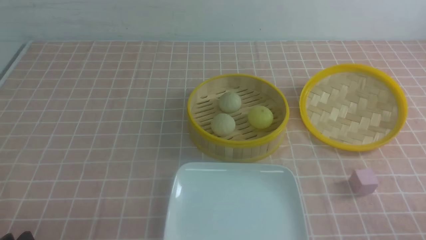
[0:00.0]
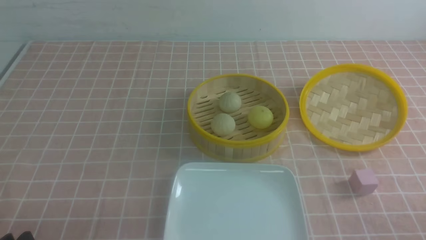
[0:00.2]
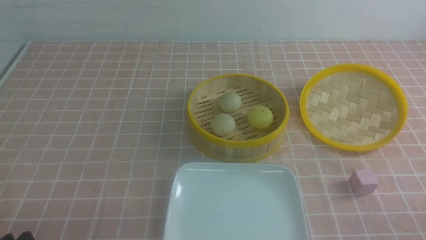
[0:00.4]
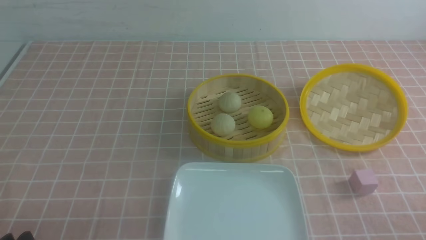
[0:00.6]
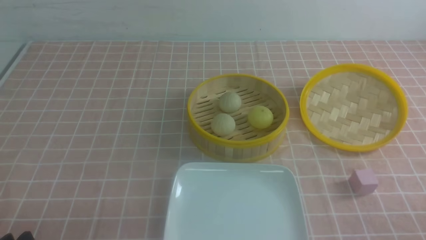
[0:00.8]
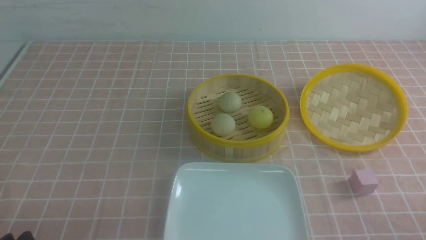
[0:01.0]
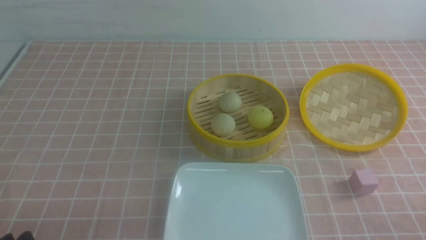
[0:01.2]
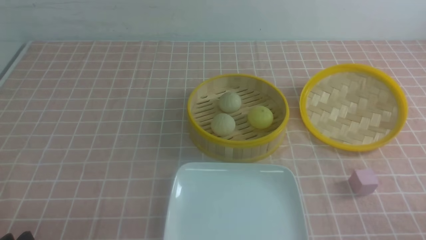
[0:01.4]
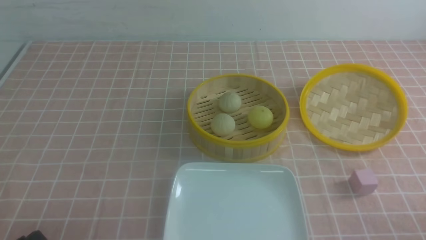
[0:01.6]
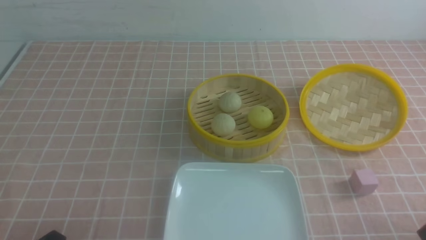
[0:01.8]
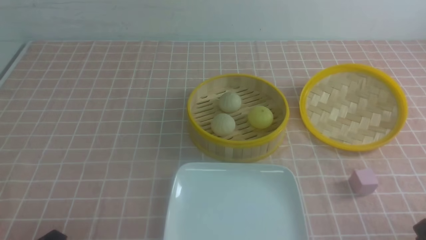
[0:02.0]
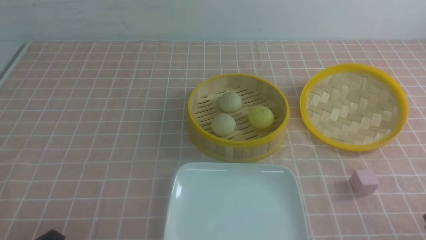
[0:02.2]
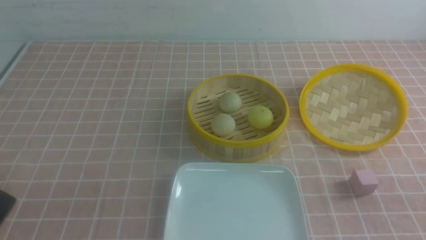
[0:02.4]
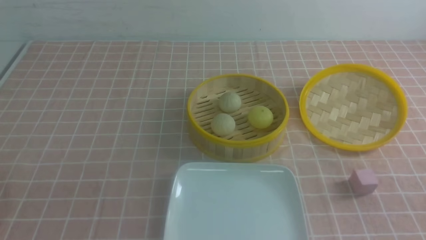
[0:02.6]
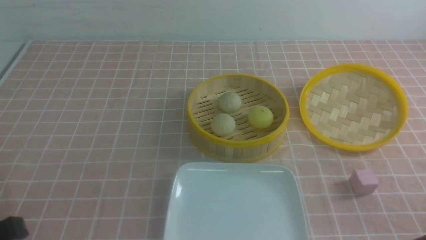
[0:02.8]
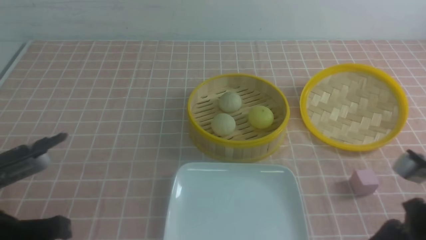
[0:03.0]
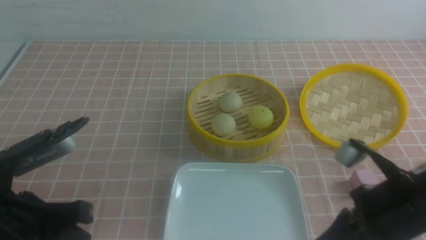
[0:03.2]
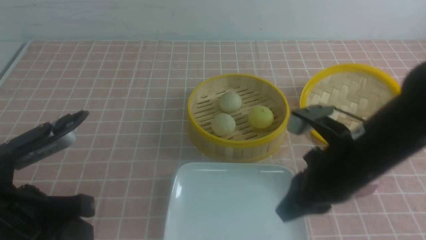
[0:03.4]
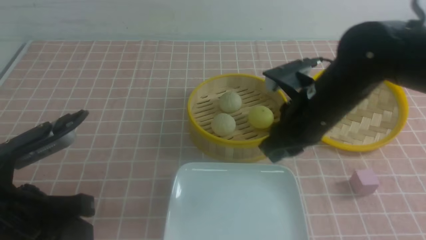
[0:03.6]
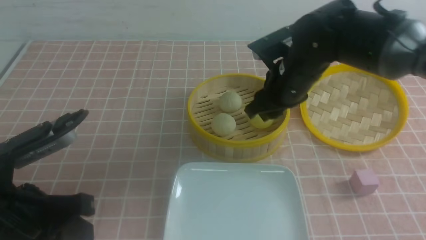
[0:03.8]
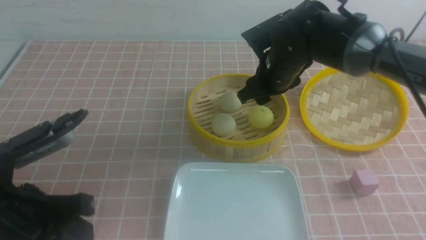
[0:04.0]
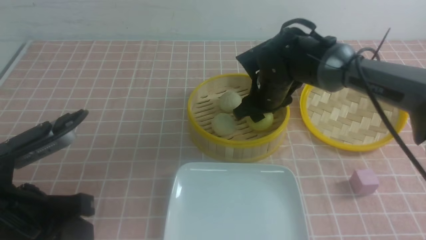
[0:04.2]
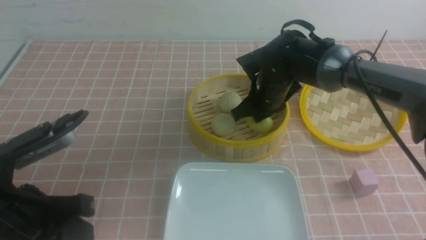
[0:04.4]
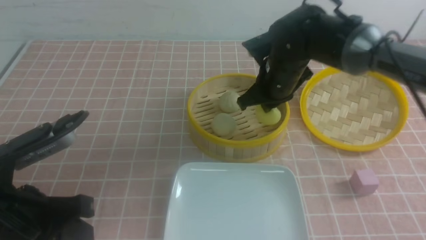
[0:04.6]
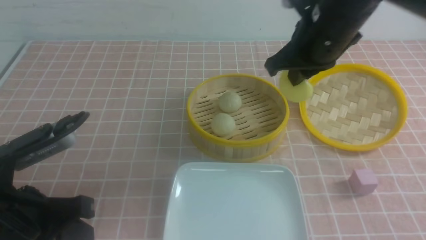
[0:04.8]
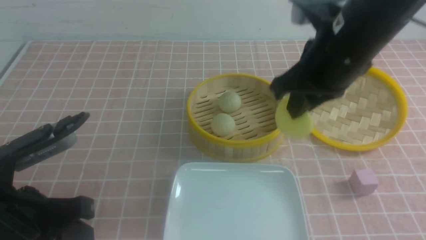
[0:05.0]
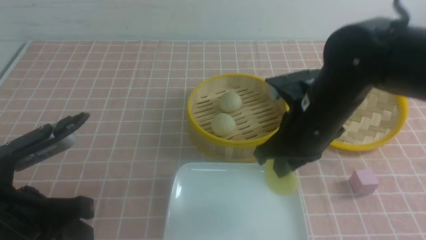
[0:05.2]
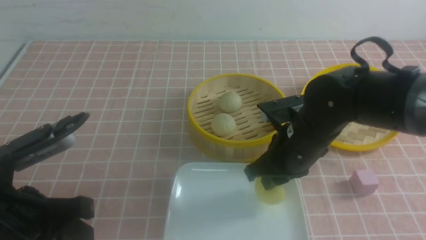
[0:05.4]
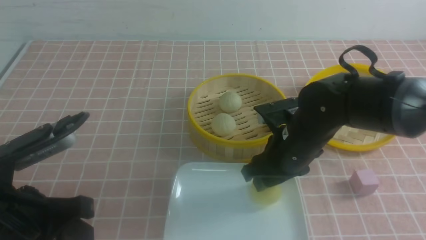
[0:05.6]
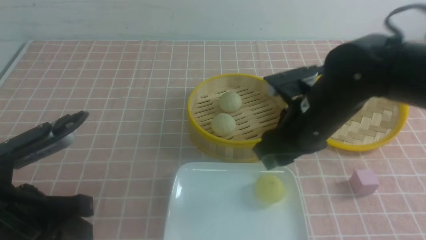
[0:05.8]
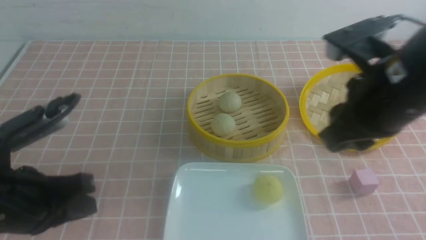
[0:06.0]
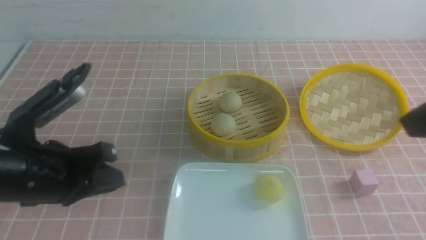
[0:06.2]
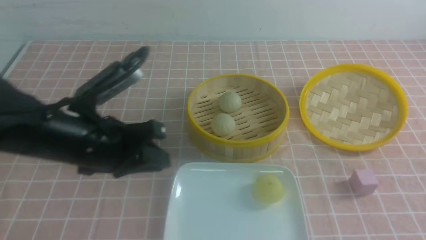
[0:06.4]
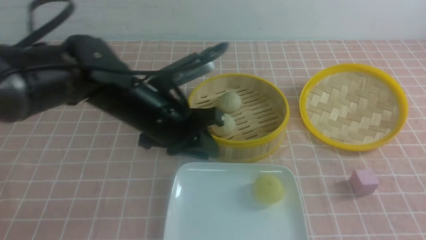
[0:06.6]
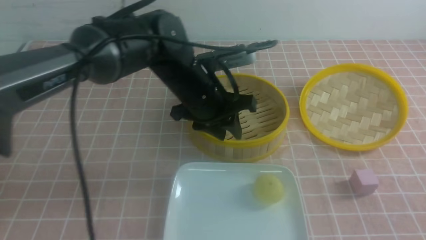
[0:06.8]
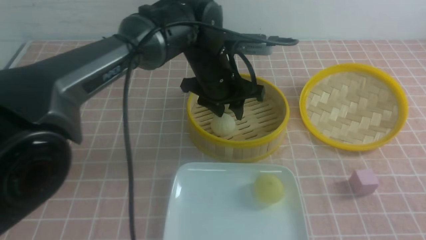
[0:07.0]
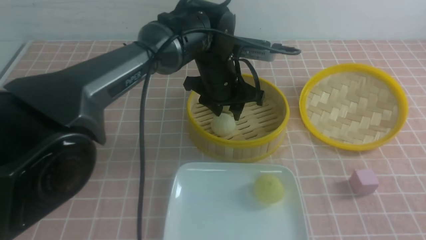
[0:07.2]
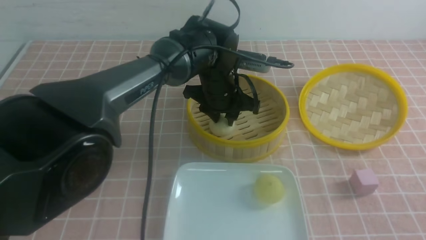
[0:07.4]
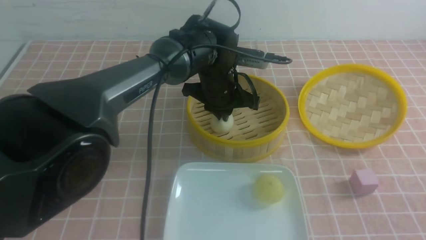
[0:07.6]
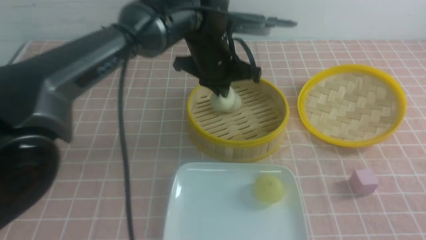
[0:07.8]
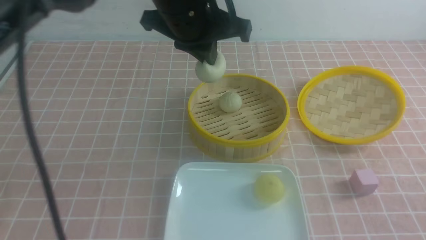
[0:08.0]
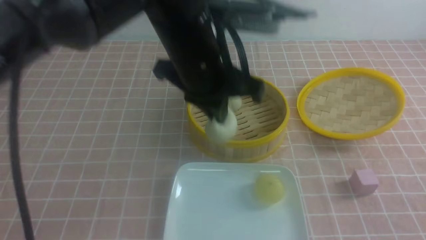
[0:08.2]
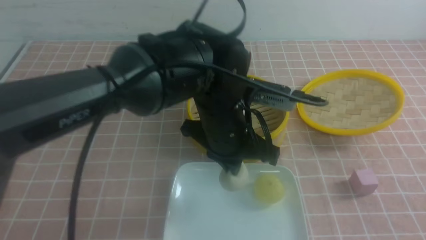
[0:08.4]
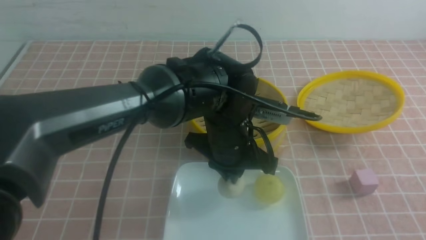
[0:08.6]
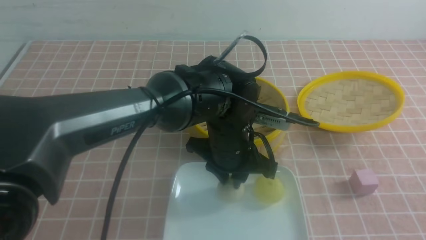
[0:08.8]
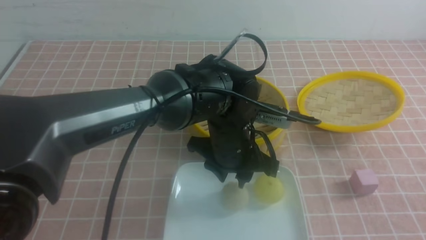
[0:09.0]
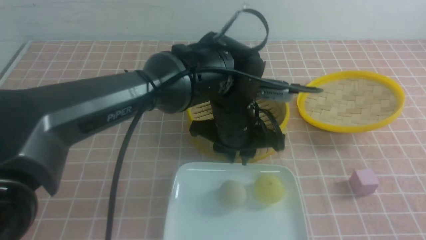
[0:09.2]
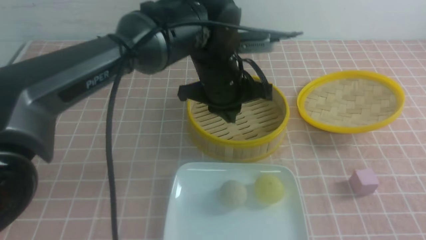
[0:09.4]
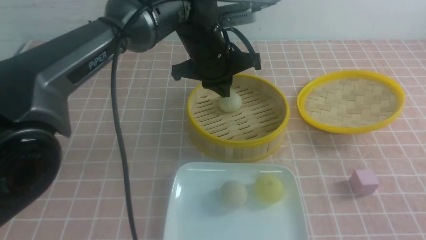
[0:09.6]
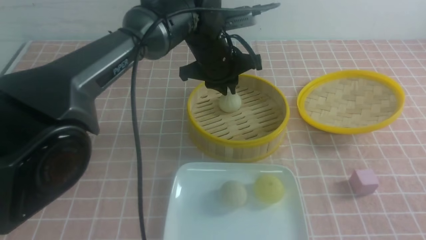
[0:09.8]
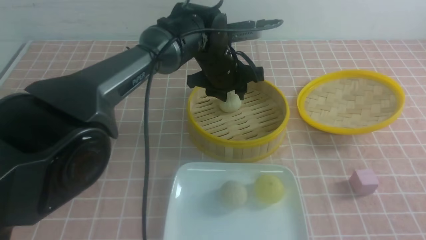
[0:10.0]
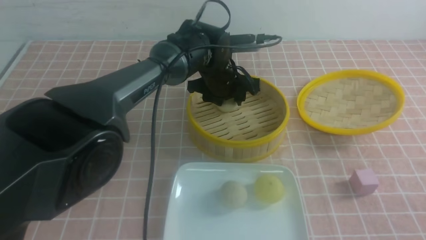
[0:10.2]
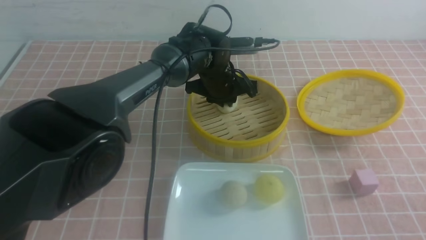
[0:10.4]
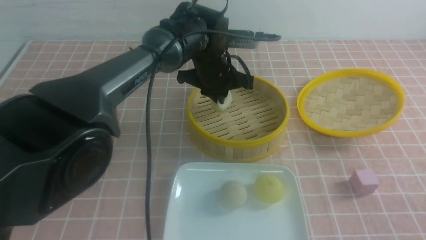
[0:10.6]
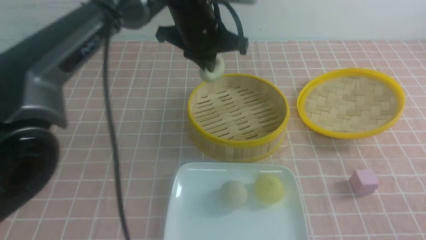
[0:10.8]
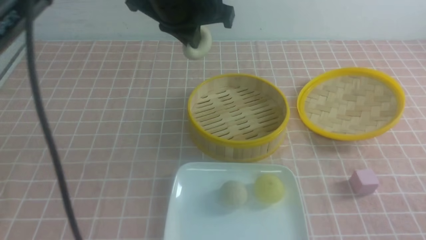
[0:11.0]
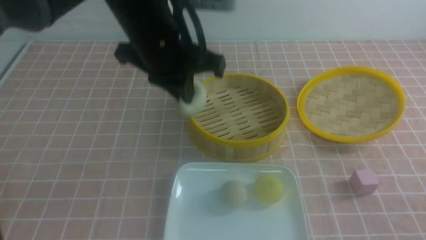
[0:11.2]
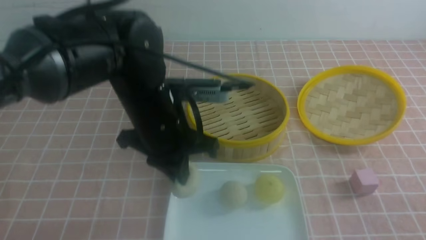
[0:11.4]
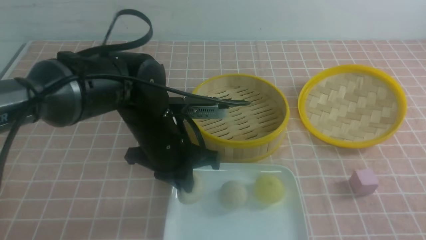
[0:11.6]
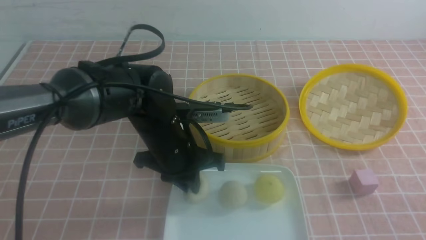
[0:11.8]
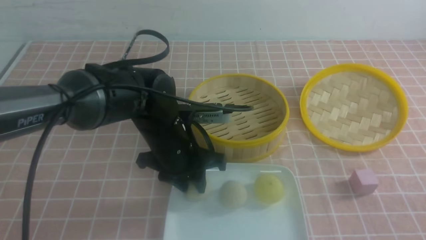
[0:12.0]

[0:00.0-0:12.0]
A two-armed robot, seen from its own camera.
Step, 0.0 to 4.4 s: use the right arm to grab the steamed stuffed bun that is closest to it.
Step, 4.6 to 5.6 s: use the right arm to put the steamed stuffed bun into the plate.
Step, 5.8 to 7.4 s: use the left arm to grab the steamed stuffed bun that is closest to it.
Step, 7.8 to 9.0 s: use the left arm to put the steamed stuffed bun into the plate.
Step, 9.2 to 10.2 s: use the left arm to grab the steamed stuffed bun that is closest to it.
1.6 to 3.0 s: The left gripper heads upward and forward, covering roughly 10 cm, and closes up; the right gripper moves forward, upward and to the left, about 15 cm, and closes.
3.0 to 4.4 s: The right gripper heads forward and to the left, covering roughly 30 cm, and opens its fingers.
4.4 to 6.0 s: The right gripper is displaced backward and upward by roughly 25 cm, and closes and opens again.
6.0 to 7.6 s: The right gripper heads backward, to the right and downward, covering about 20 cm, and closes its fingers; the left gripper is displaced forward and to the right by roughly 35 cm, and opens and closes again.
7.6 to 9.0 s: The left gripper heads backward, covering roughly 10 cm, and reaches some 10 cm upward, then returns.
9.0 to 10.4 s: The left gripper travels forward by about 15 cm.
10.4 to 12.0 s: The left gripper shifts about 15 cm backward and to the left, and goes upward and returns, roughly 15 cm each way.

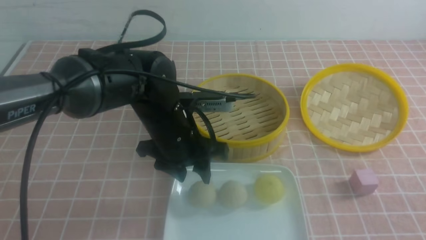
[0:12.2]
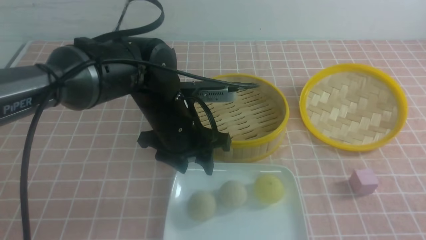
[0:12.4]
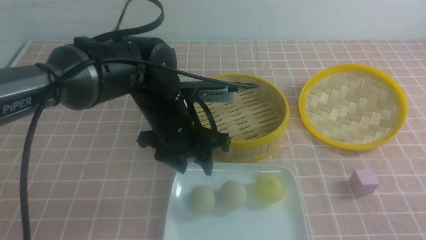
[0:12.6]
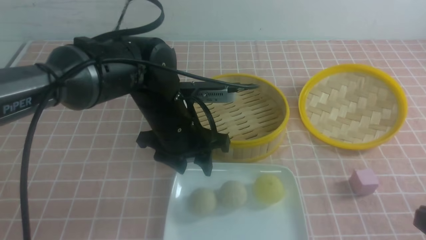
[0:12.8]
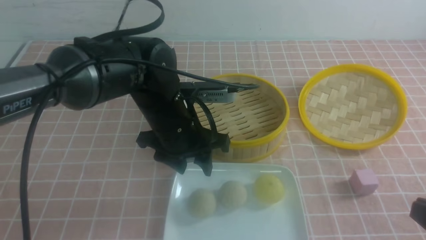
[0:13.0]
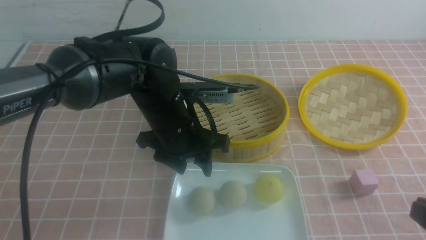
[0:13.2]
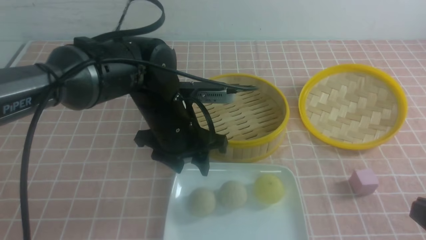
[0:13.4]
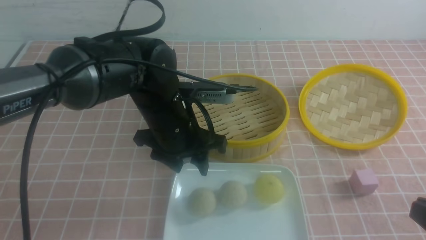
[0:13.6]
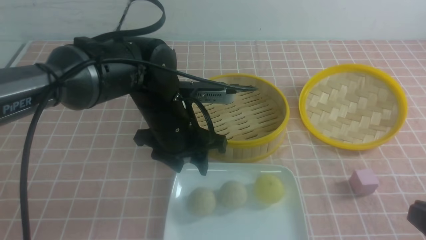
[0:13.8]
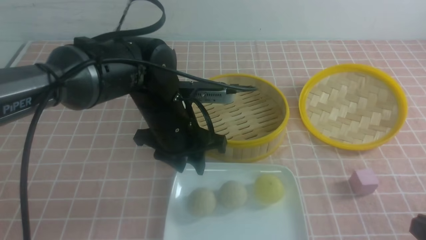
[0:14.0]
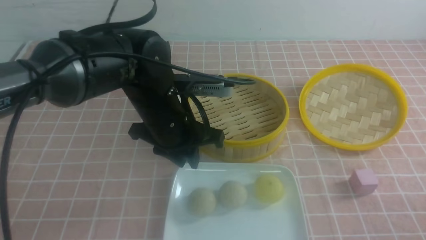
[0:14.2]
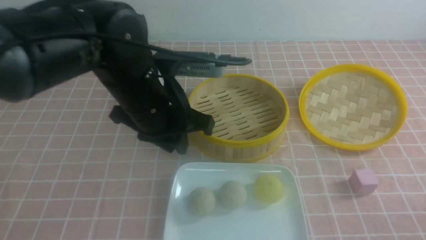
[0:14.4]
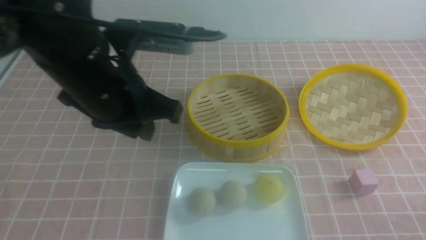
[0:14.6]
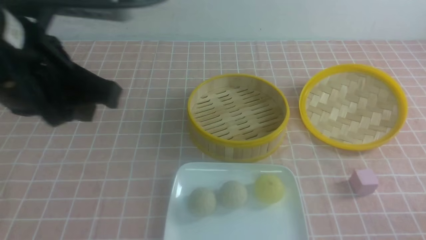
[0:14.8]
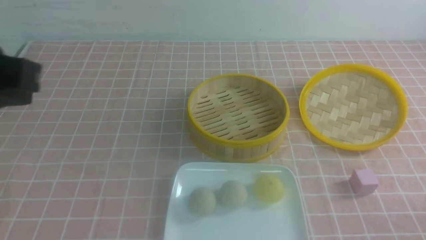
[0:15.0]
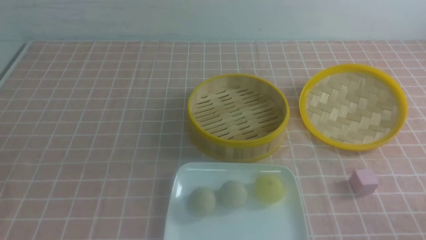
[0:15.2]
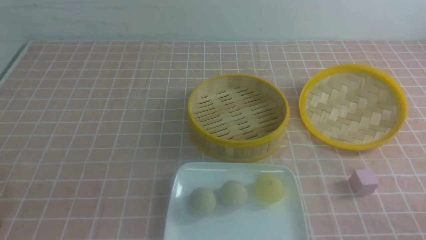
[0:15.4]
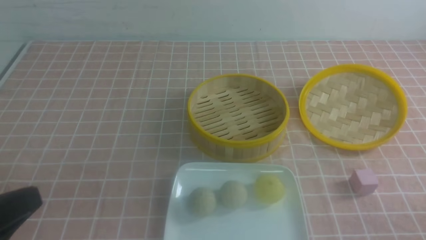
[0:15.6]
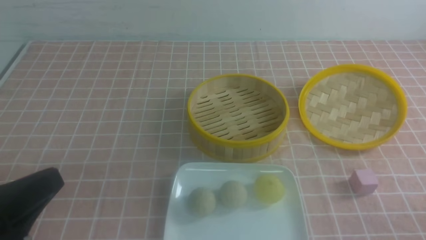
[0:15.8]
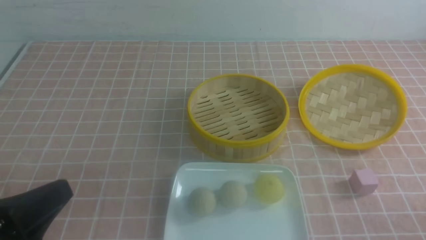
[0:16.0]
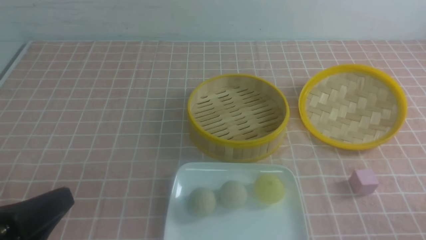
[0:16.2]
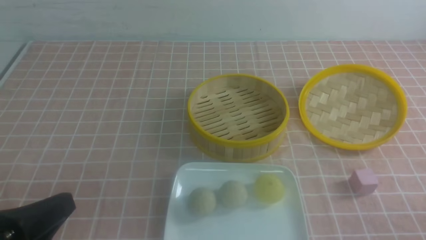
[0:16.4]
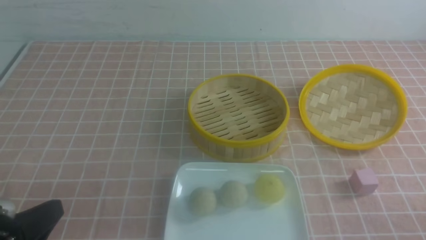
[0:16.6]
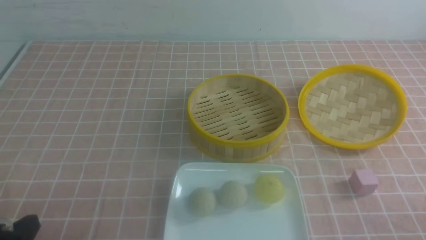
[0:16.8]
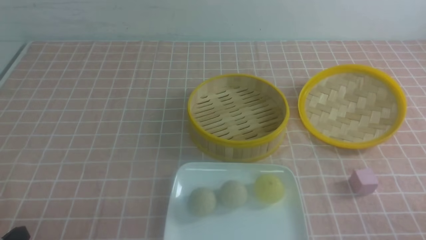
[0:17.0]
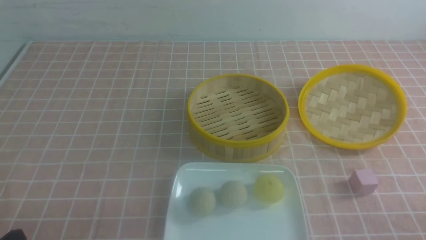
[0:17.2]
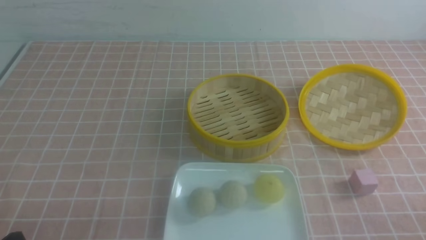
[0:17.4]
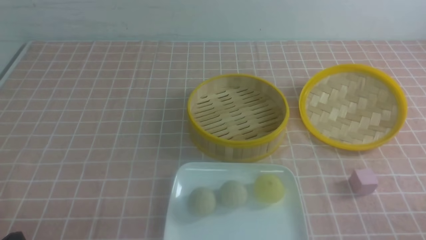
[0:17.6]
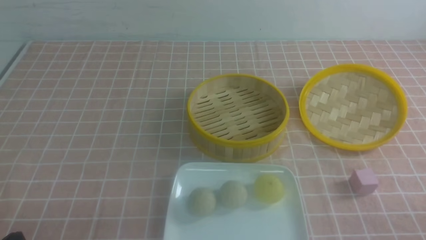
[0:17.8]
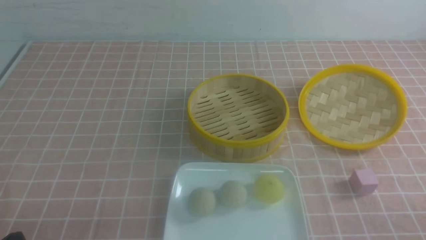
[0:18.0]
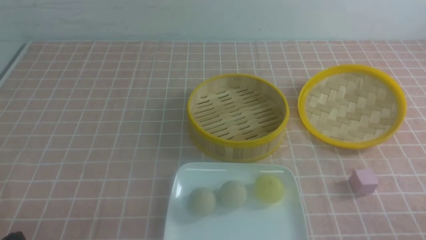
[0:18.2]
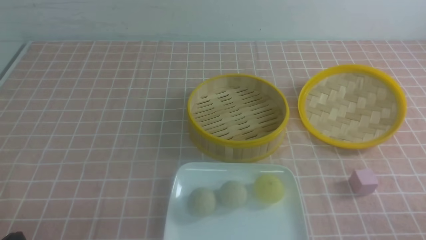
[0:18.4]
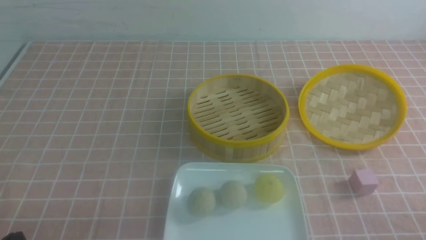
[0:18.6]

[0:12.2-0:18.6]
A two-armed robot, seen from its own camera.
12.2 to 13.8 s: The right gripper changes place by roughly 5 cm.
13.8 to 15.4 s: The left gripper is displaced backward, to the left and upward by approximately 30 cm, and closes up, while the right gripper is displaced downward by roughly 10 cm.
17.0 to 18.6 s: Neither gripper changes place.
